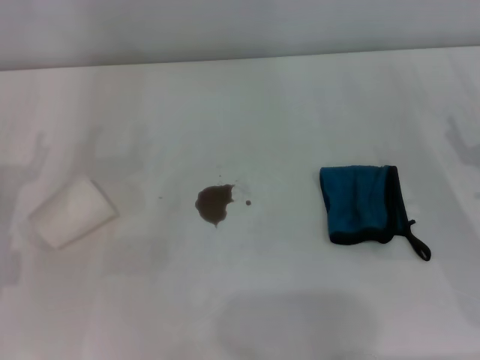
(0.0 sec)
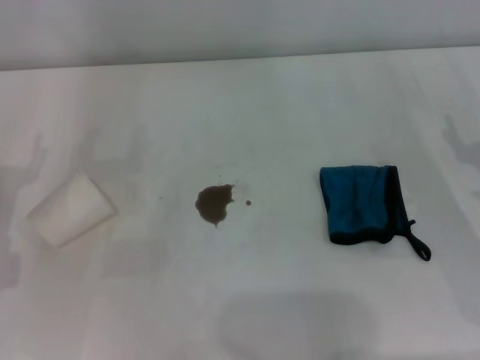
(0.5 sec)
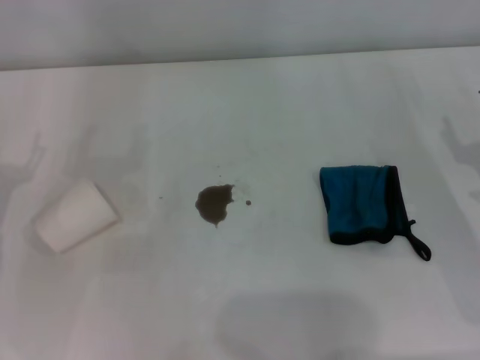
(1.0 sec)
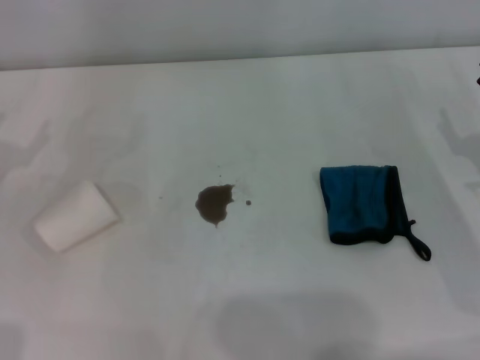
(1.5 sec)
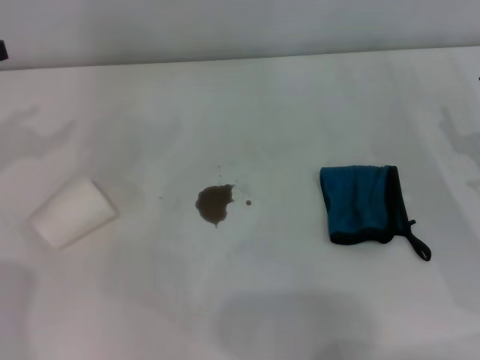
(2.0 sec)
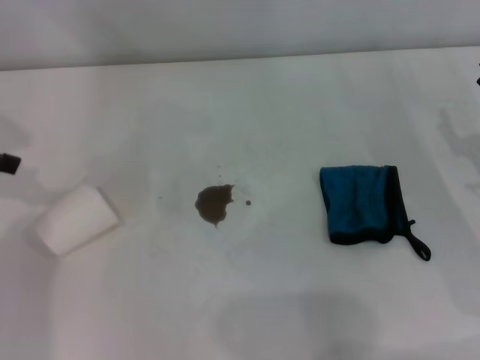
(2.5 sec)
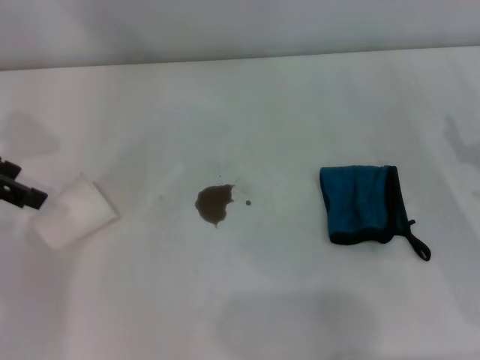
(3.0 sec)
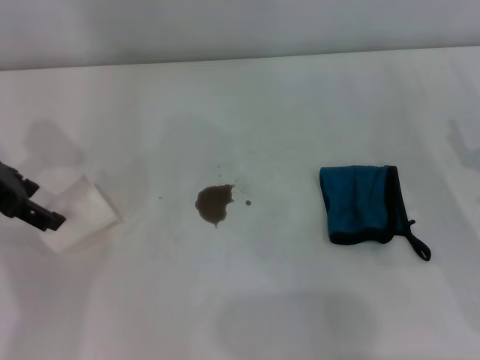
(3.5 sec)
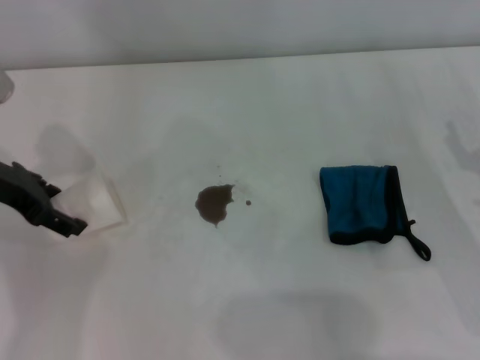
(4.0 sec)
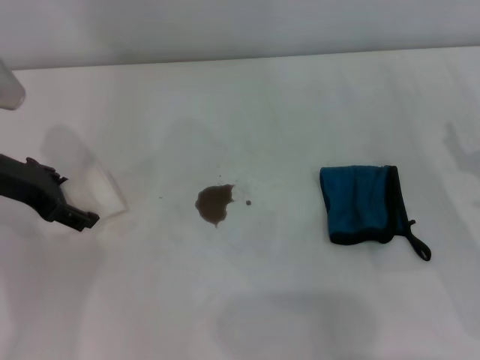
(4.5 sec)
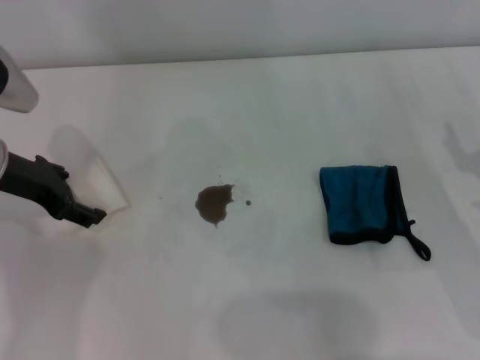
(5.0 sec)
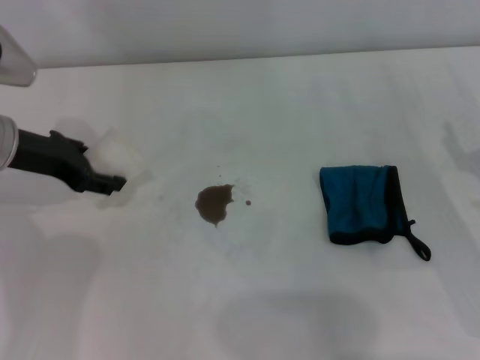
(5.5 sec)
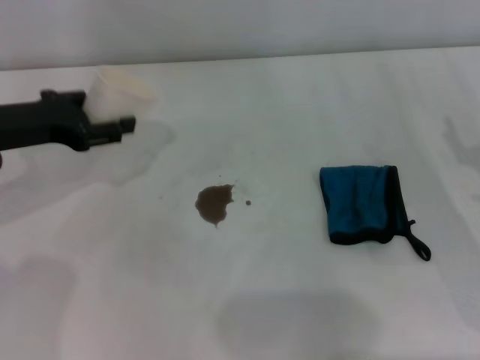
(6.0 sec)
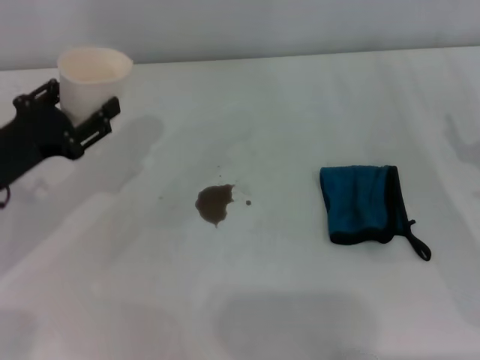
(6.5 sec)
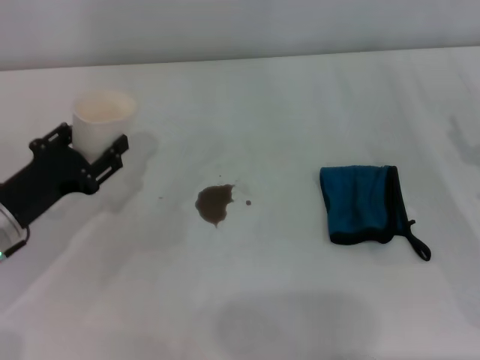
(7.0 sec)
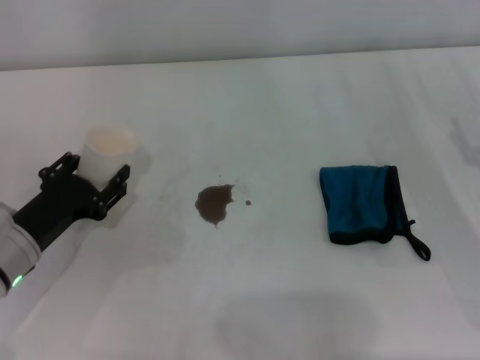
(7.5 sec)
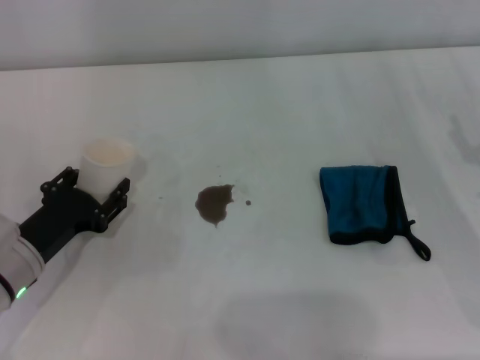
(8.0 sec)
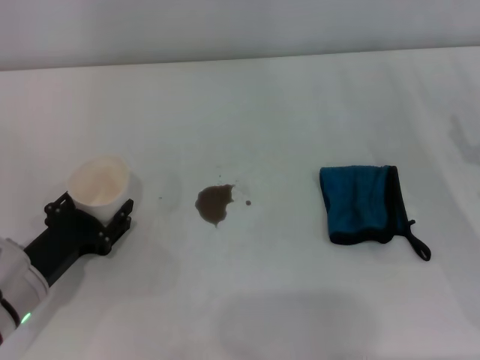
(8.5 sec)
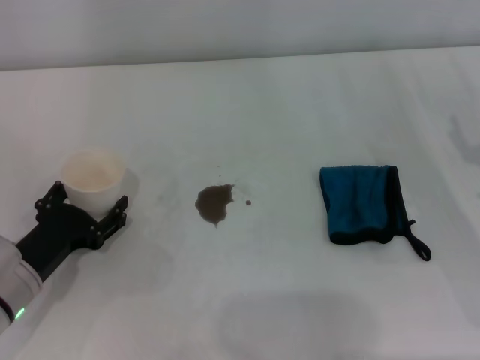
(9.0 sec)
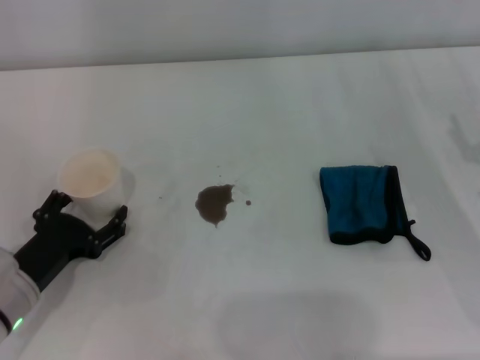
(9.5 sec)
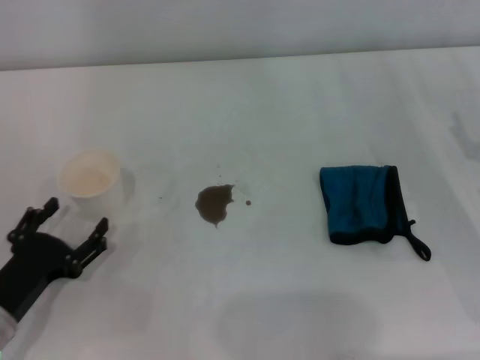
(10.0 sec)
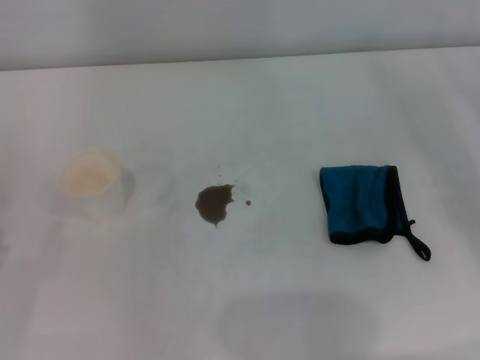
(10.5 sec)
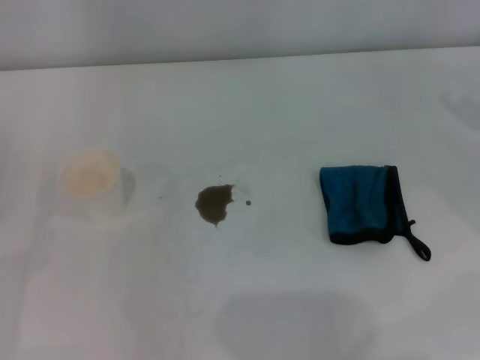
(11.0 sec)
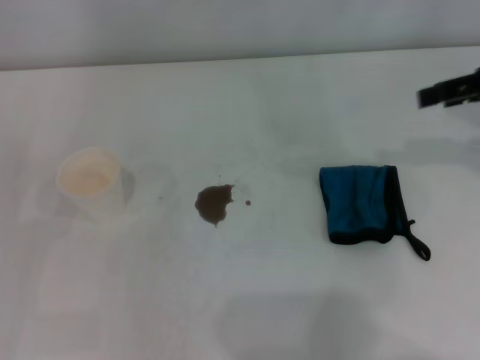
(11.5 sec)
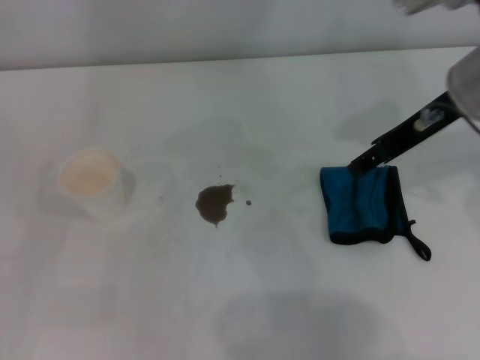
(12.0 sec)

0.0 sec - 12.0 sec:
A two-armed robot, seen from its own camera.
Step, 0.0 sec - 4.0 sec: Grasp the paper cup with the left gripper.
Step, 4.5 sec - 9.0 sec: Stand the paper cup upright with the left gripper.
2.0 sec - 4.0 sec: The left gripper goes approximately 10 cm to the right.
4.0 sec - 6.0 sec: The left gripper closes up.
6.0 sec - 8.0 sec: The left gripper heads downward and backward, covering approximately 15 cm.
8.0 sec - 10.0 sec: The left gripper goes approximately 5 cm backward, and opens.
10.0 sec - 12.0 sec: The left gripper heads to the left and upward, covering some 10 cm, while the right gripper shifts roughly 25 cm upward, to the left and forward.

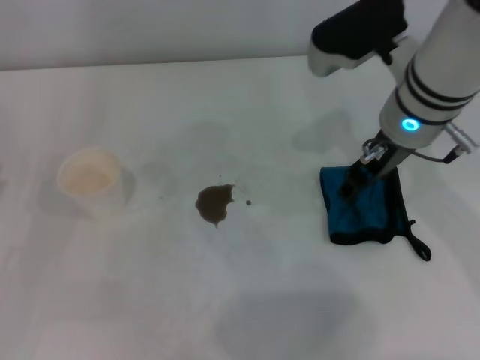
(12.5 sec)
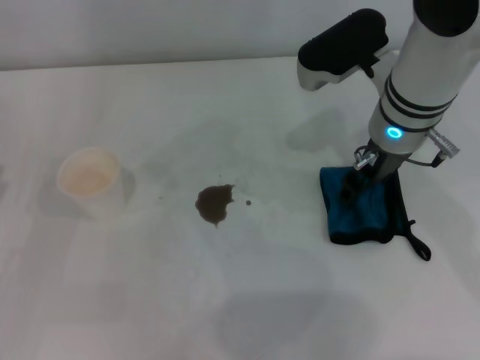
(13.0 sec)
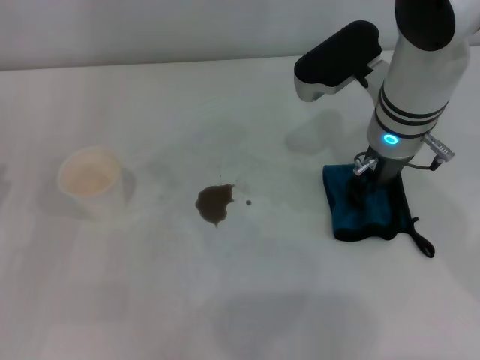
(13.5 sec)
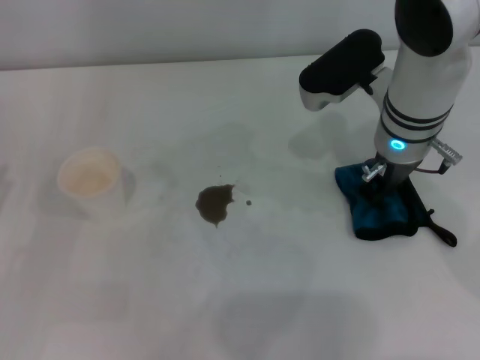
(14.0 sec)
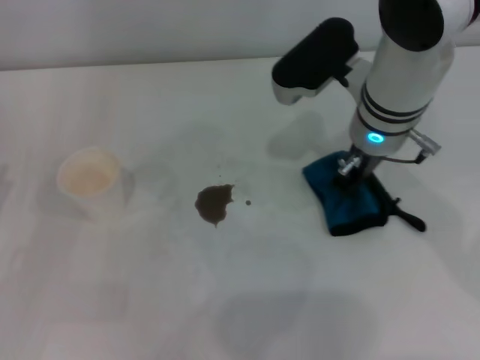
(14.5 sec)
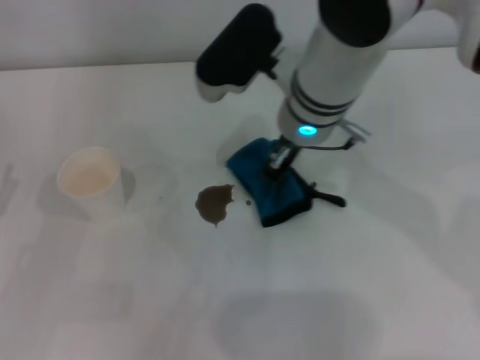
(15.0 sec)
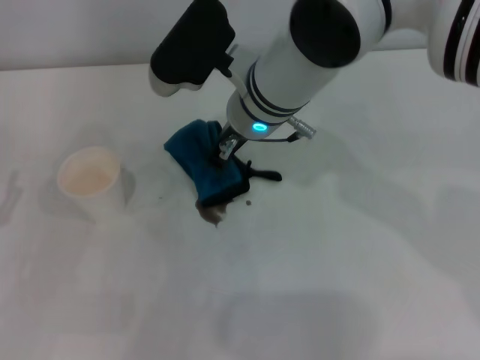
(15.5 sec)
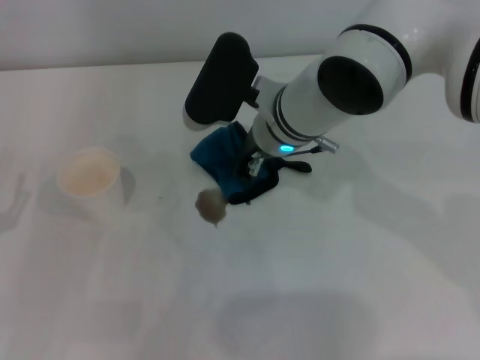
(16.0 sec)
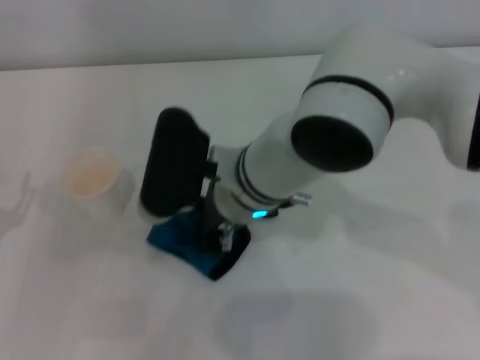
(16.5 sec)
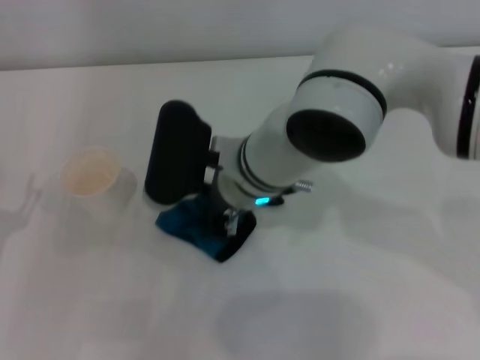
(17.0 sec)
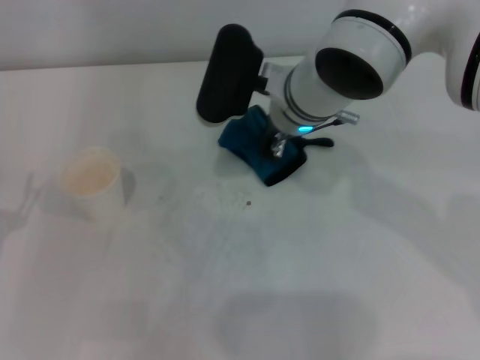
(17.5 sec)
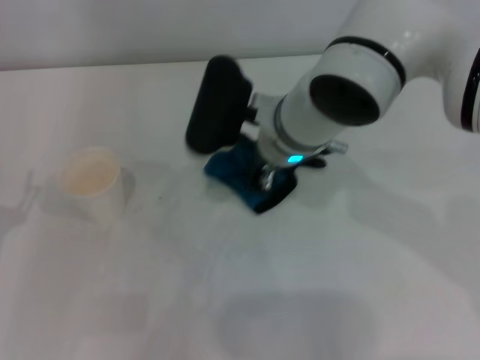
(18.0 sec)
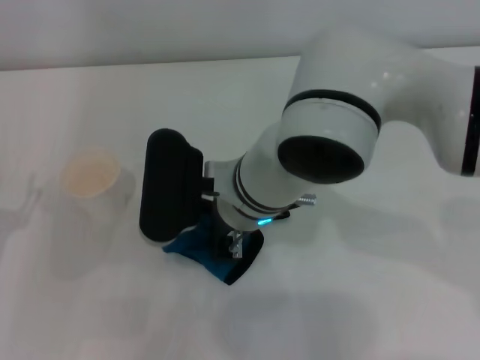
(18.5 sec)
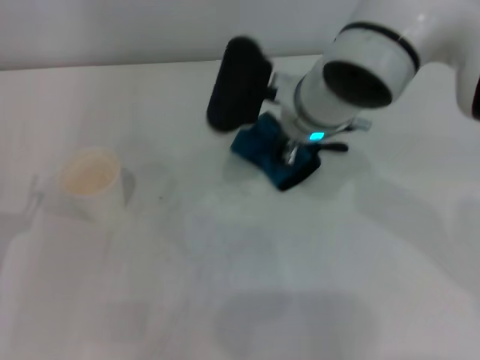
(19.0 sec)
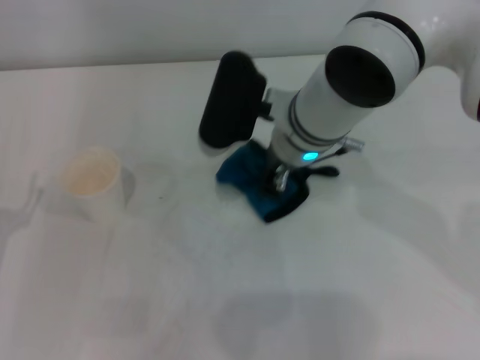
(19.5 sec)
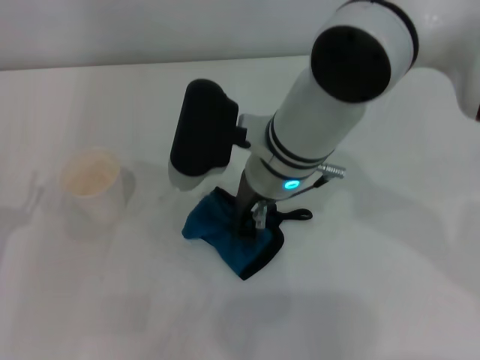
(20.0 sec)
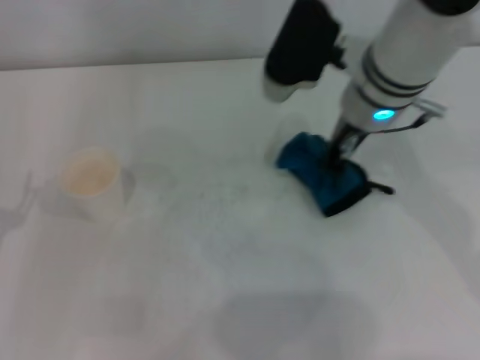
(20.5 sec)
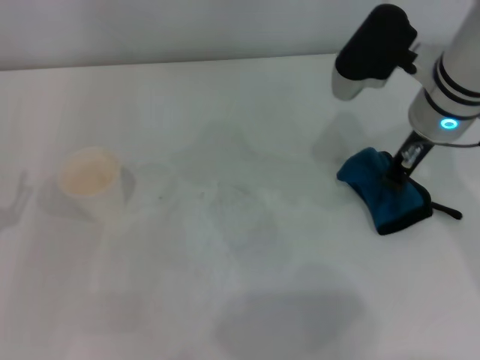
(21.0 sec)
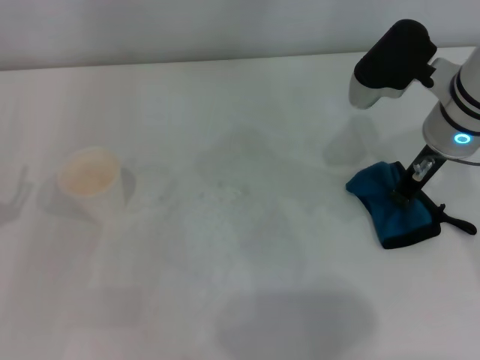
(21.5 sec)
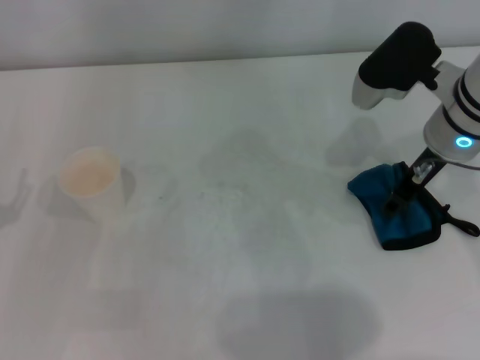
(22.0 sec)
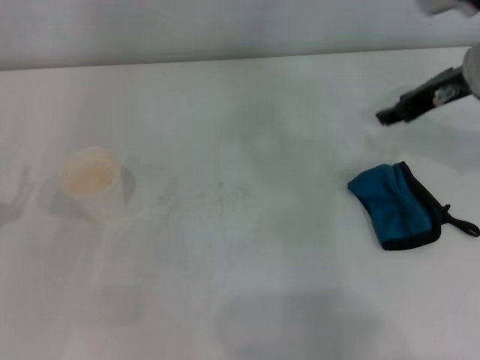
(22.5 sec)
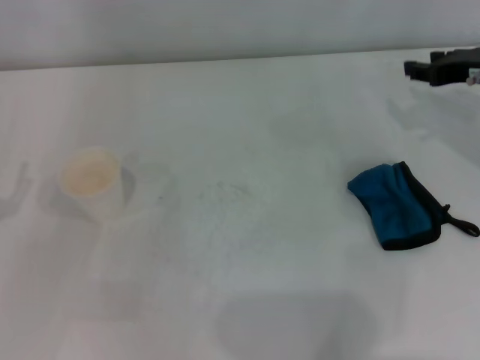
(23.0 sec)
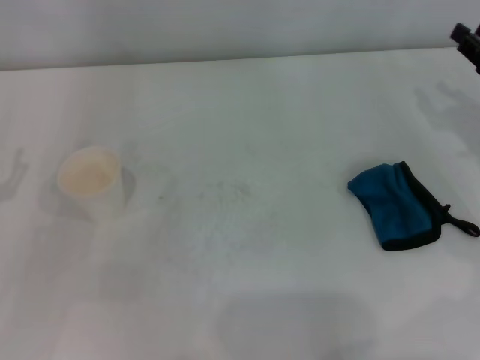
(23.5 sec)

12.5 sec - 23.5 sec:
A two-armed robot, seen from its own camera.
Step, 14.0 sec - 20.0 sec: Wipe the stains off the table with the right gripper.
Step, 20.5 sec - 22.0 sec: Place the rag on the table with the right gripper.
12.5 sec - 14.5 sec: The right gripper closes up.
14.5 sec - 16.0 sec: The right gripper moves to the left, roughly 5 cm.
18.0 sec - 20.0 sec: The right gripper moves forward and backward over about 10 cm, changing direction 2 times.
20.0 sec - 21.5 sec: The right gripper is displaced to the right by about 15 cm.
21.5 sec - 23.5 sec: The right gripper heads to the right, covering some 15 cm, and opens.

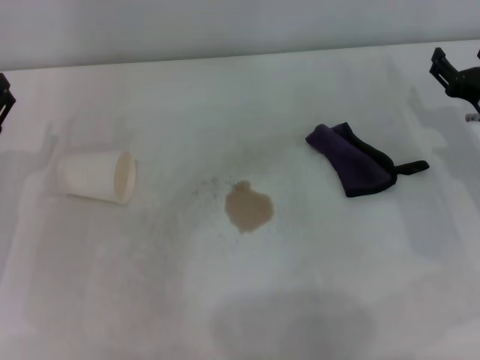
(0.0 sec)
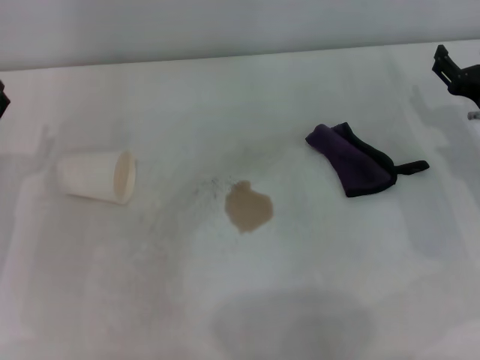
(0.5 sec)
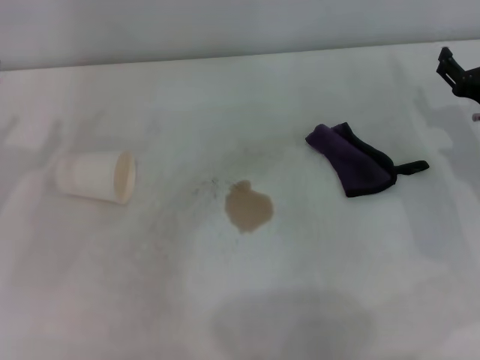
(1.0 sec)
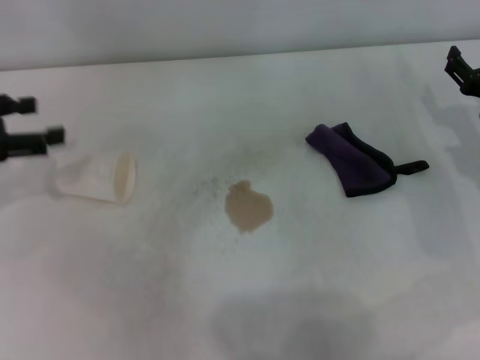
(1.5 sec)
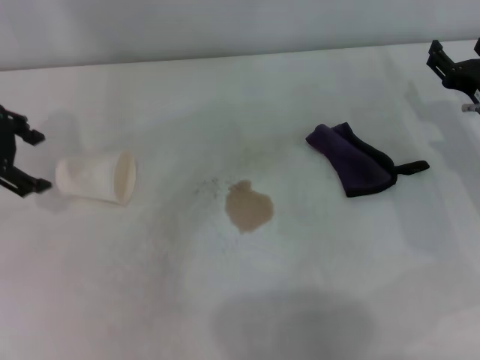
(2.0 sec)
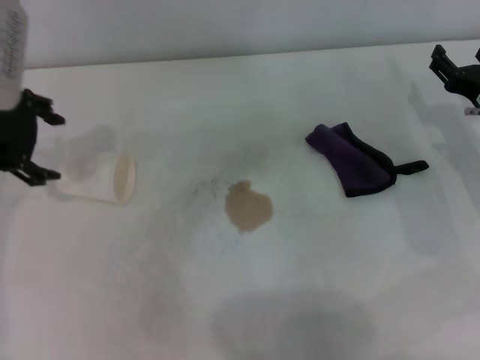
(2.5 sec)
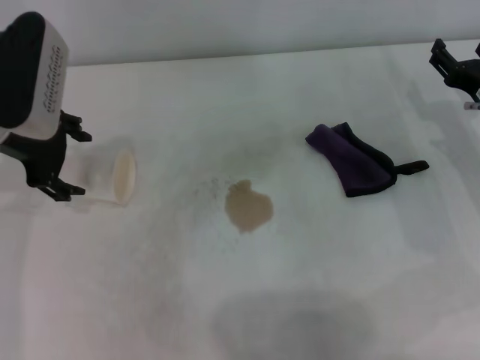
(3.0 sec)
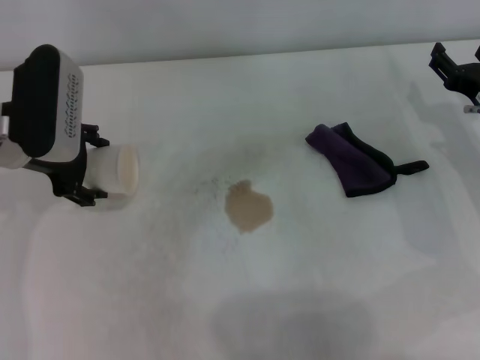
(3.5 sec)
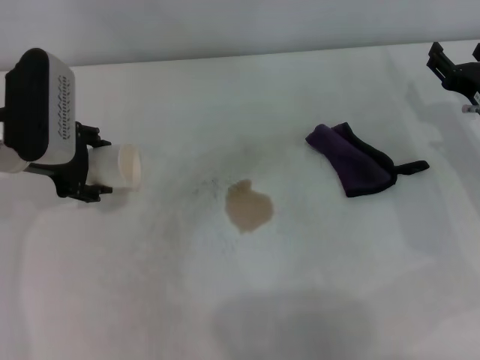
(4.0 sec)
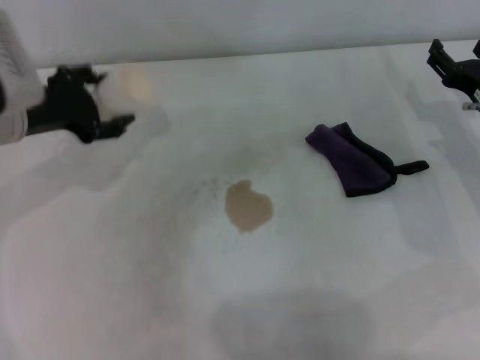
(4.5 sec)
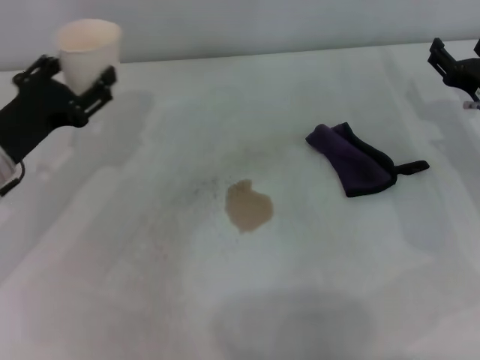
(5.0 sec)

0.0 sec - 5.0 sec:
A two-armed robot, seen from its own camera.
Step, 0.0 sec - 4.0 sec: Grasp the paper cup with the left gripper.
0.0 sec - 2.5 sec: The left gripper is displaced upward and forward by some 15 cm.
2.5 sec - 5.0 sec: The left gripper shifts about 15 cm downward and backward, and closes its fingers.
